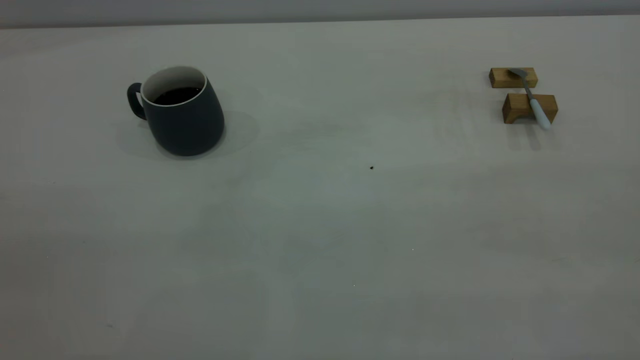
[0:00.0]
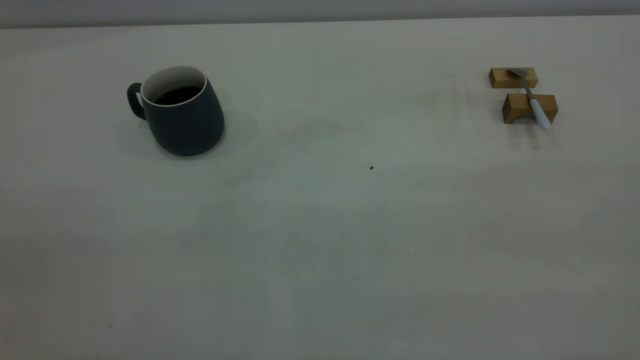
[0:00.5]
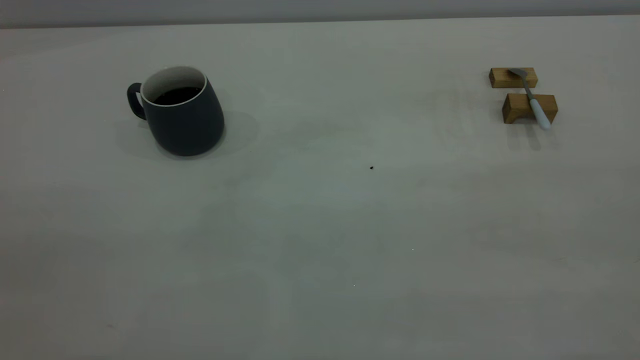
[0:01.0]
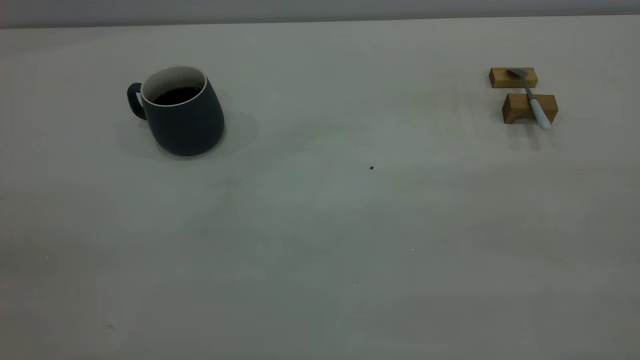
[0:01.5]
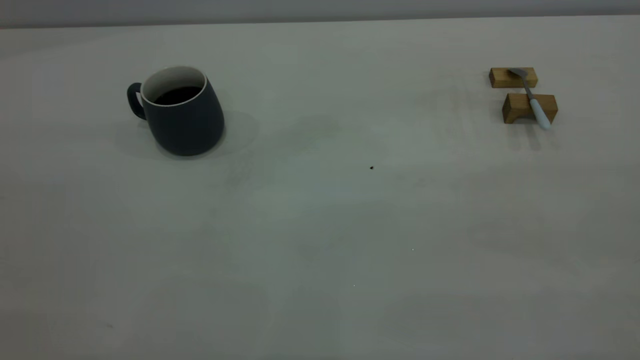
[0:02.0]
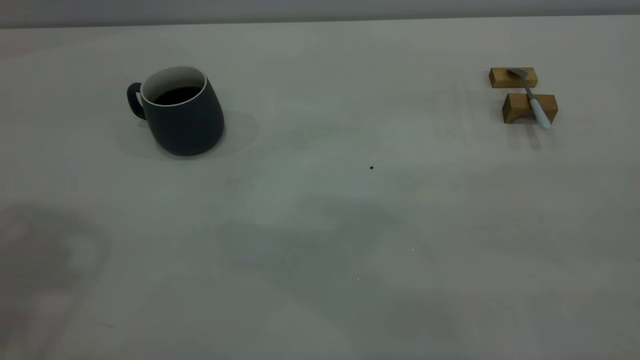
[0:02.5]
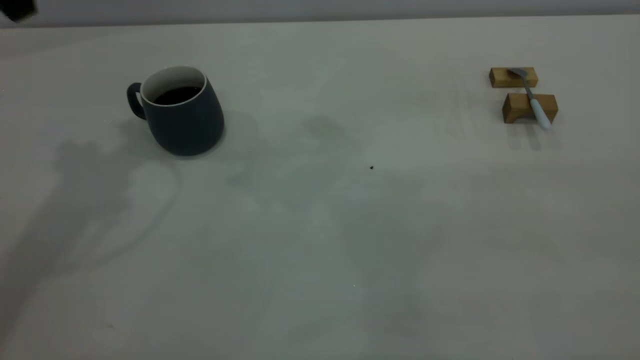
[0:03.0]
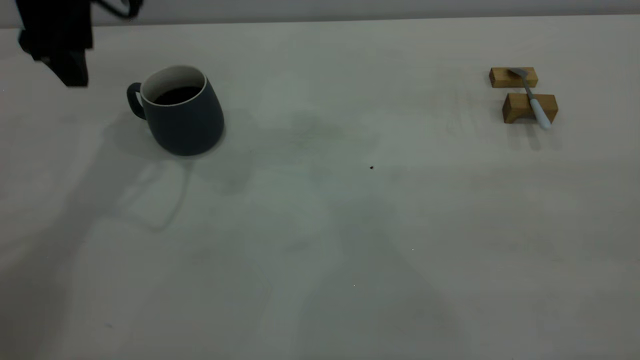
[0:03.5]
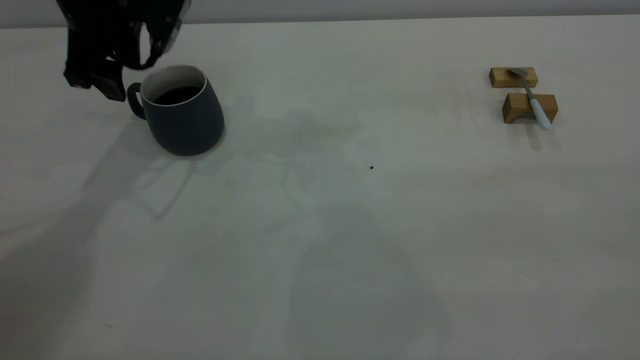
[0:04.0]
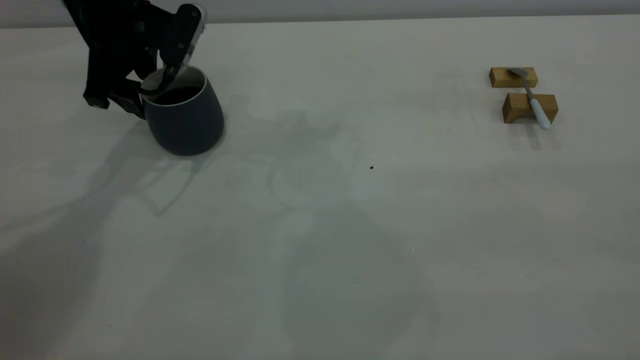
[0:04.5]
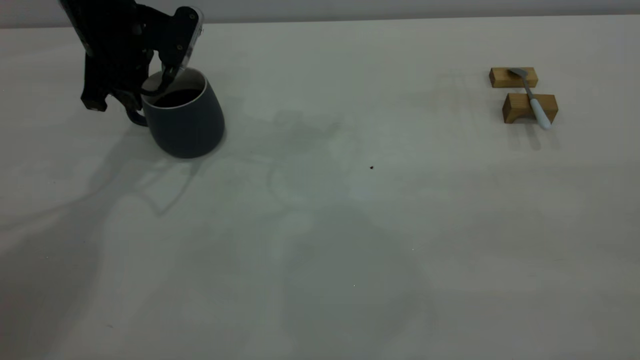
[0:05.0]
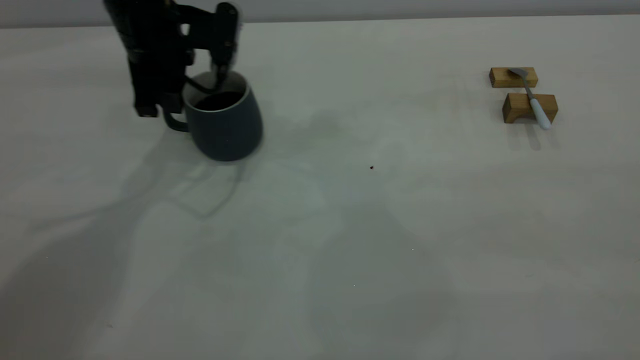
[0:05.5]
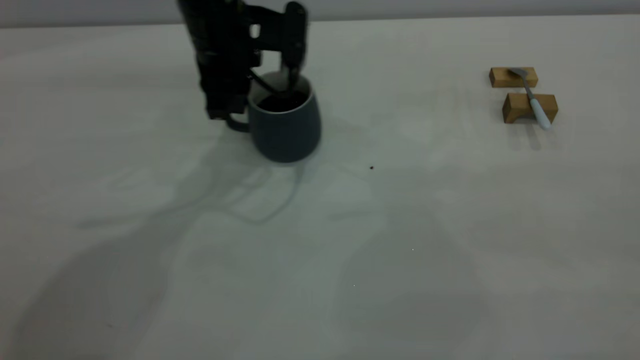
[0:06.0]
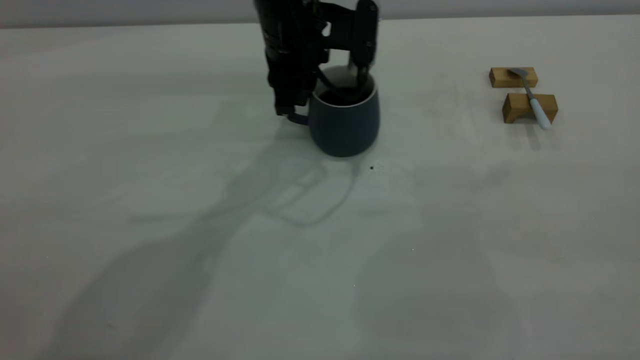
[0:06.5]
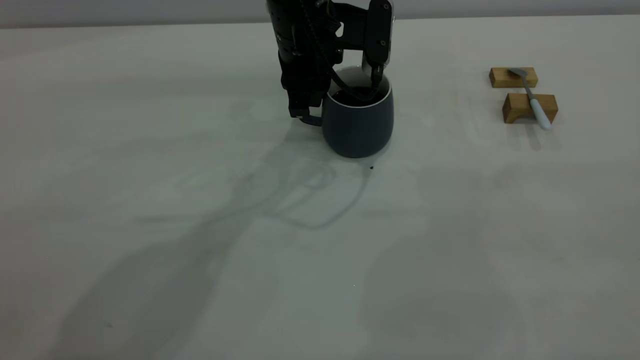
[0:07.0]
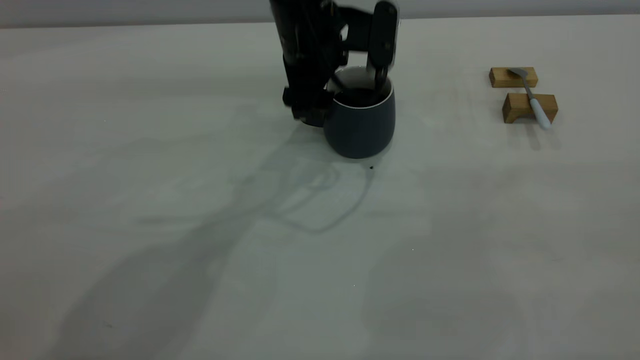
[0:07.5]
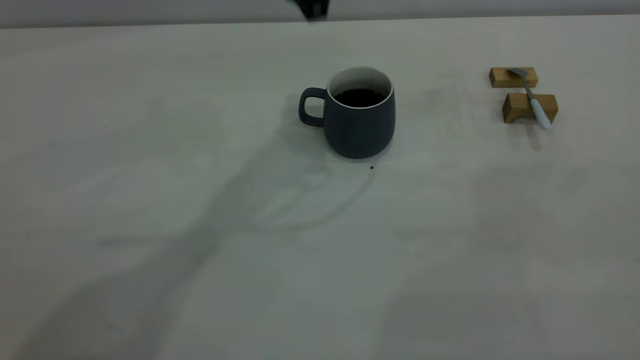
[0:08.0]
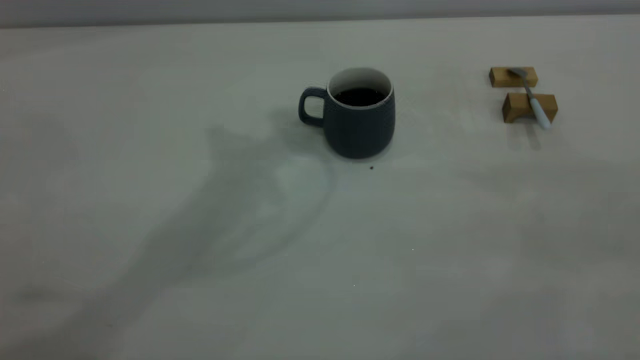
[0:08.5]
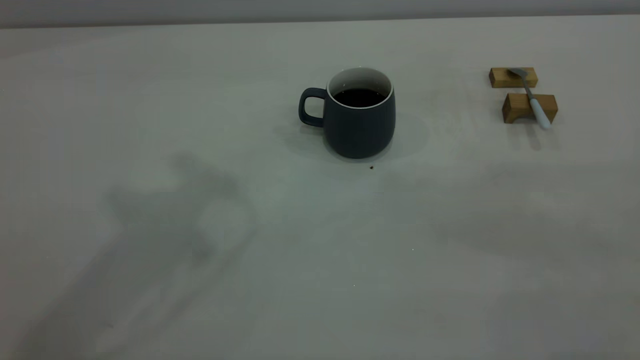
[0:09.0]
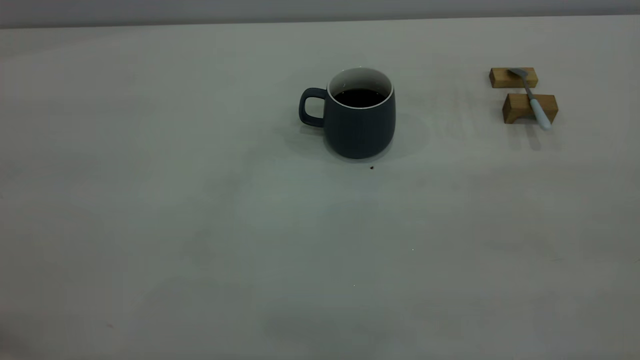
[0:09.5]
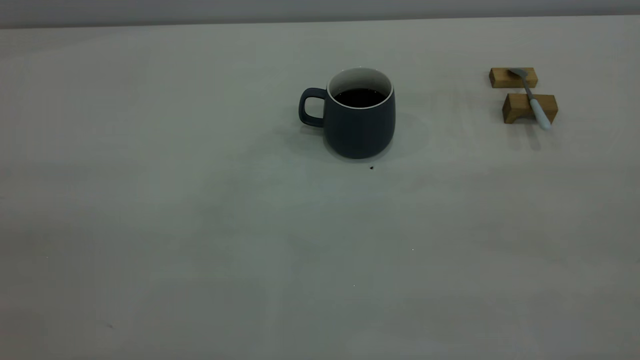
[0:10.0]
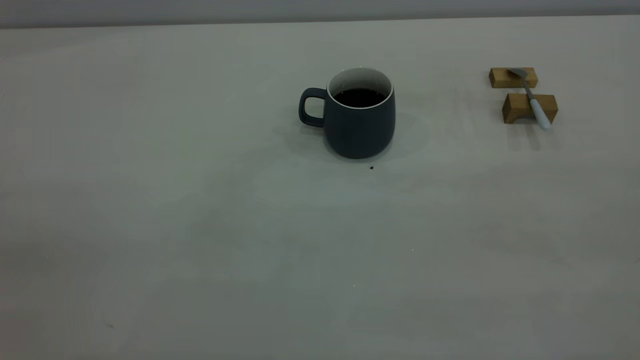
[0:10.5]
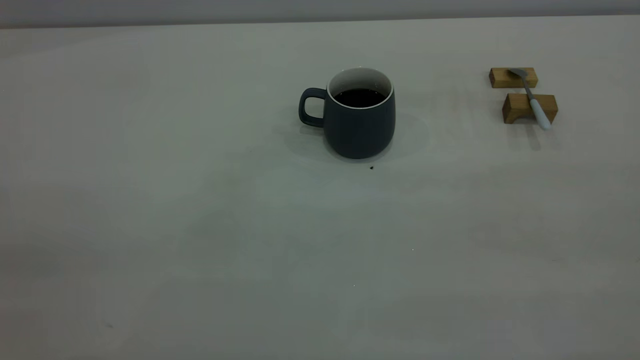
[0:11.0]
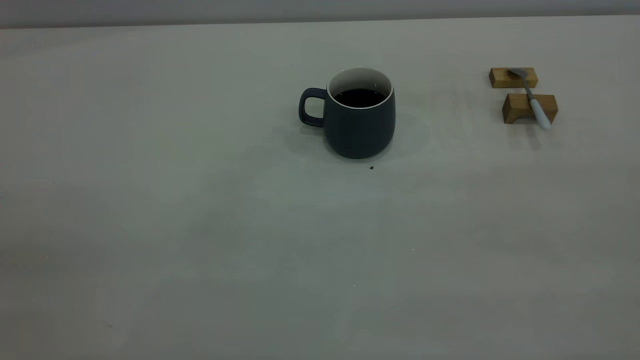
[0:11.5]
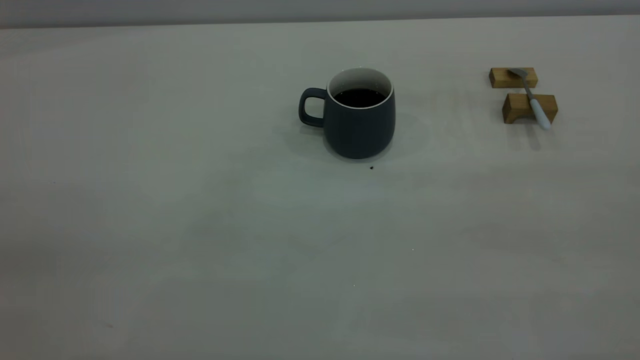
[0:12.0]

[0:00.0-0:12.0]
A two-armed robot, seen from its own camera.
Step, 0:00.0 to 0:07.5: Move the cup with coffee to the center of view.
0:02.0 to 0:04.0: The left gripper goes approximately 40 cm forward and downward, and opens up.
0:04.0 to 0:06.0: The left gripper is displaced to the right by about 15 cm, and closes.
0:06.0 to 0:08.0: The left gripper moves upward and to the right, about 15 cm, and opens its fingers.

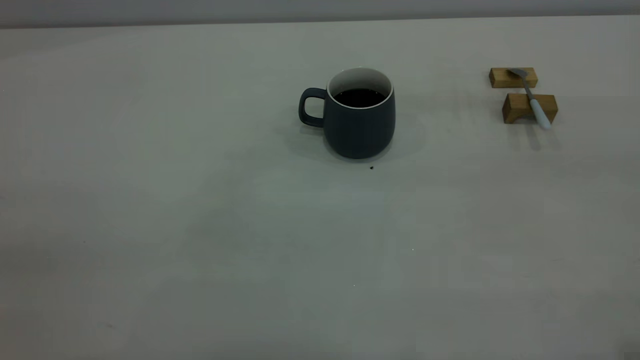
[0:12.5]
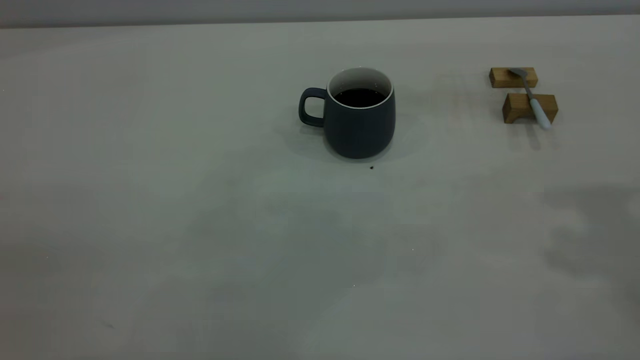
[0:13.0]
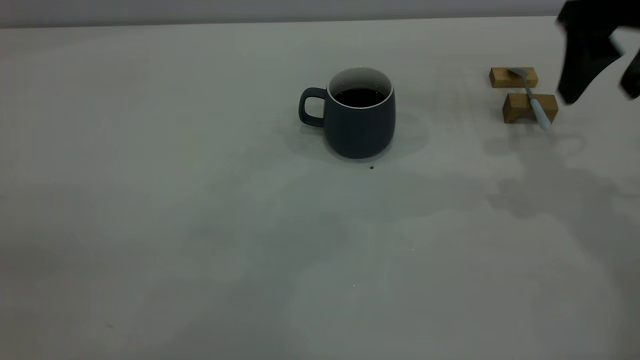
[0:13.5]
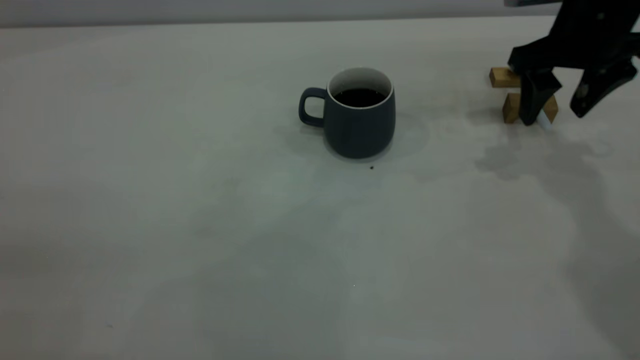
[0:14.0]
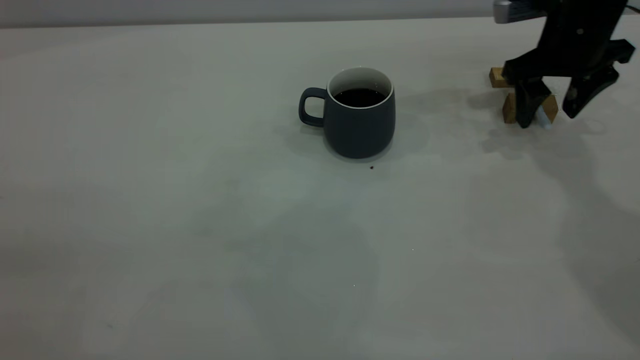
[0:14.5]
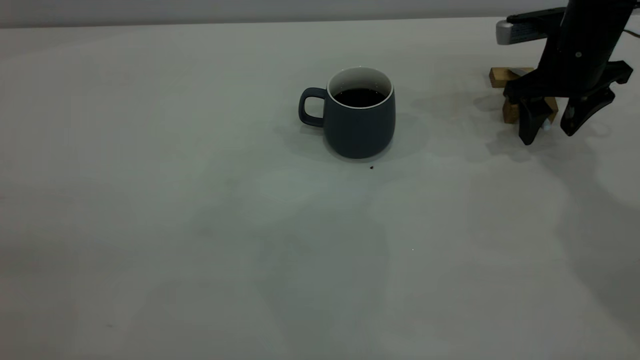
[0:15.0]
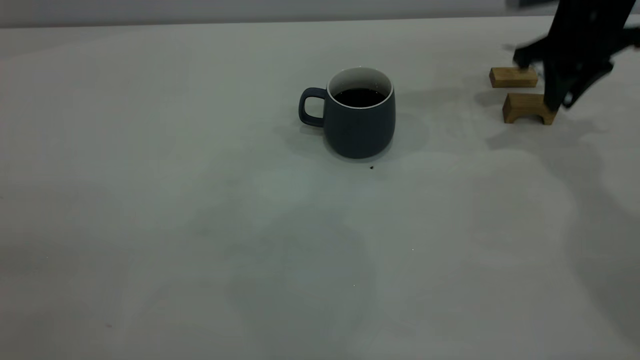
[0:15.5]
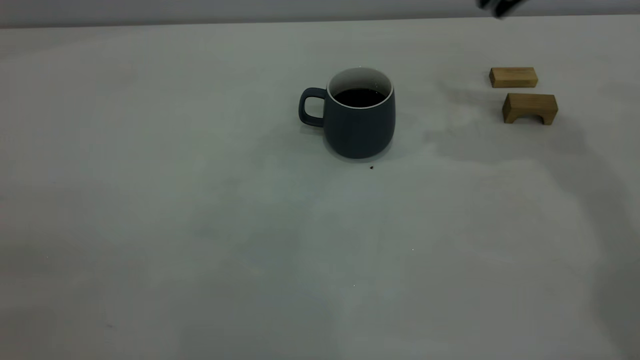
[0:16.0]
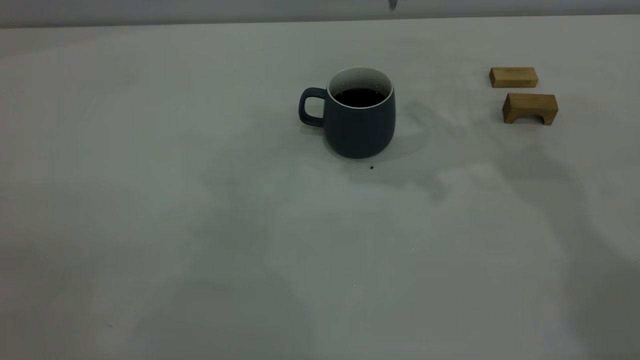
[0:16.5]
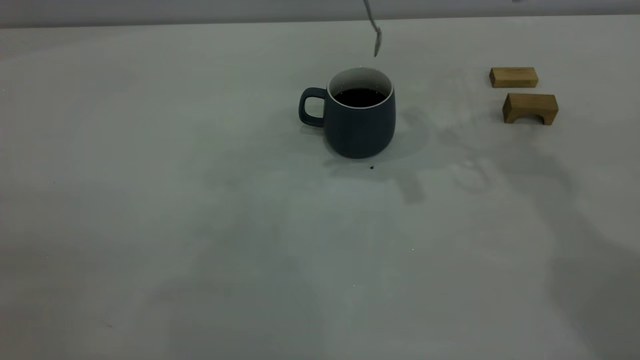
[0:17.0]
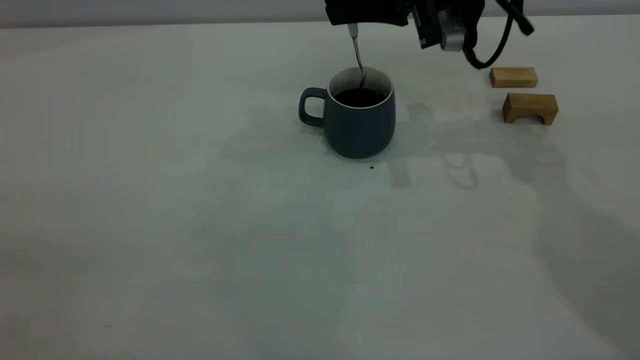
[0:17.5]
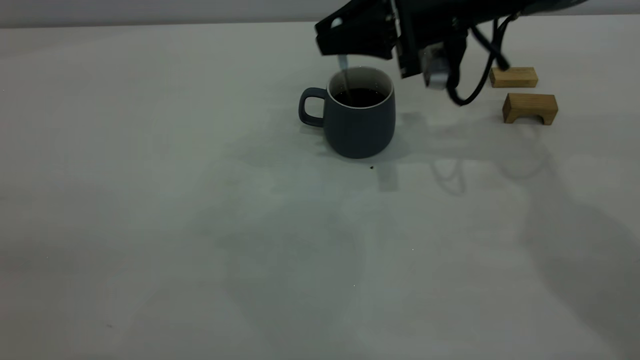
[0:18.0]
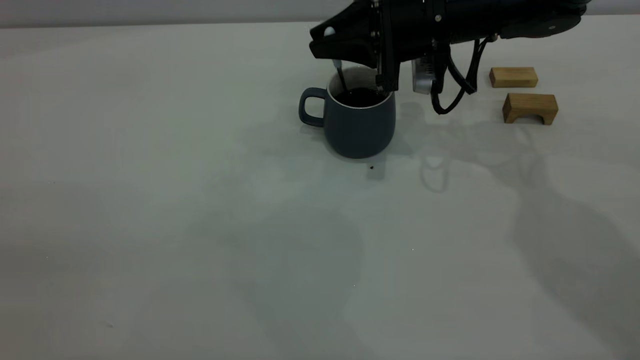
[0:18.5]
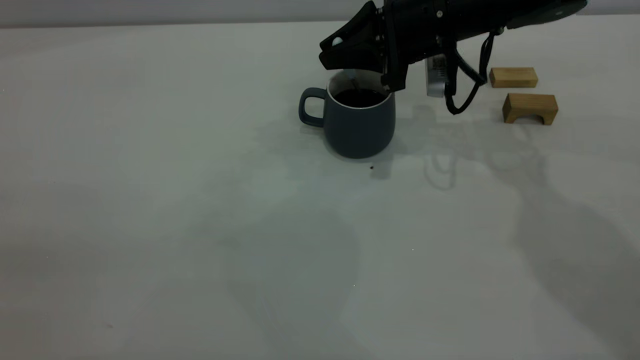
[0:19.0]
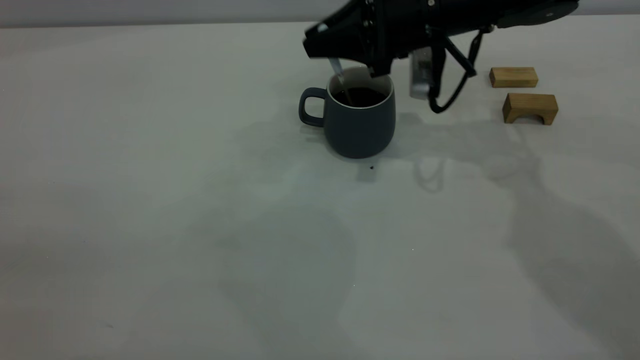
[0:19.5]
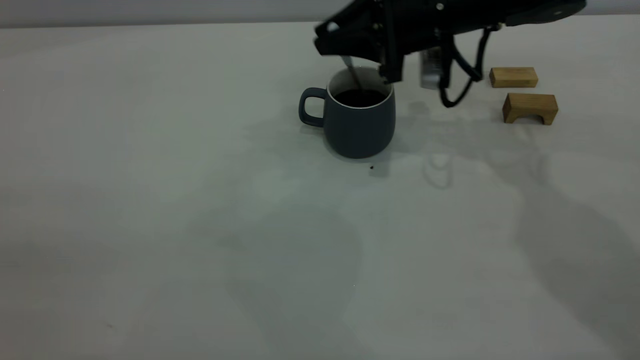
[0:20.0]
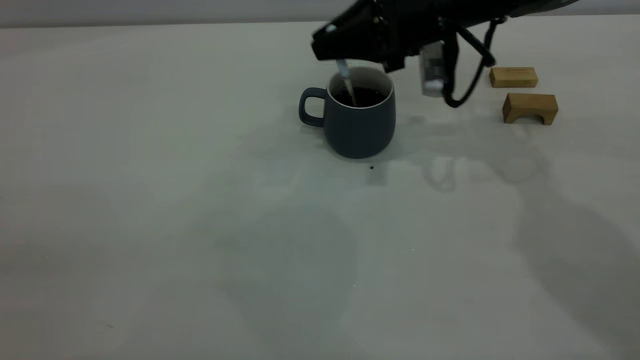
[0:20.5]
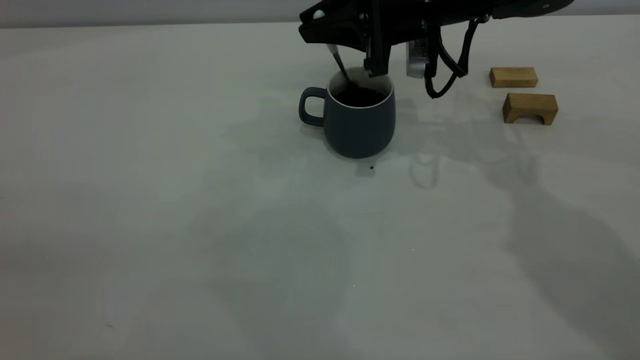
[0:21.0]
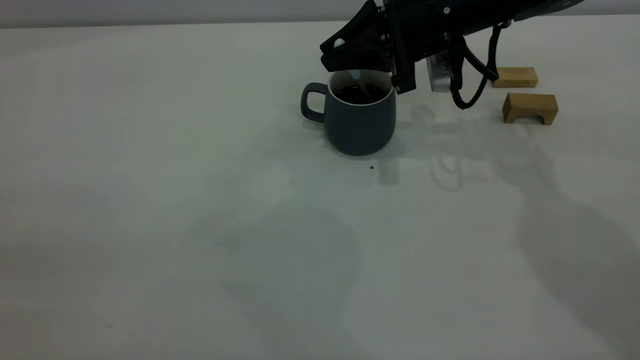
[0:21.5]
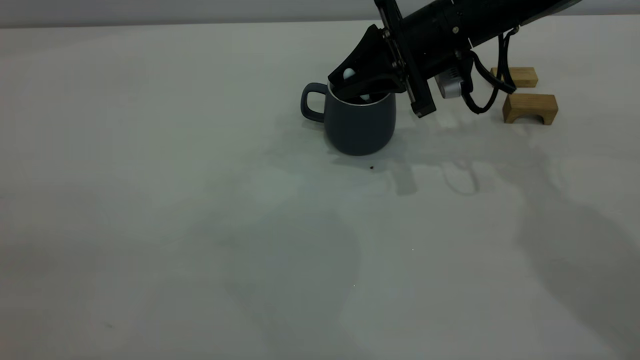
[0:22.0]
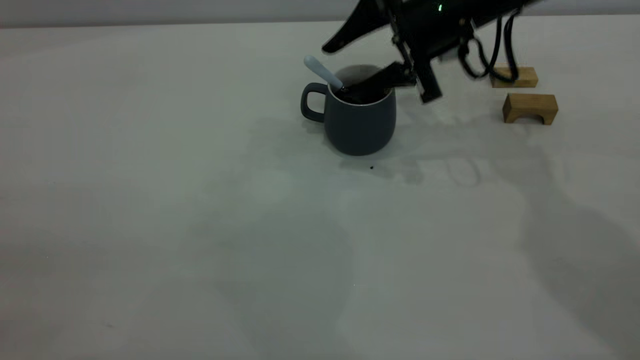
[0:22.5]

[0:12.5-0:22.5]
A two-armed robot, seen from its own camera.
Step, 0:12.5 to 0:15.5: Pick up the spoon.
0:12.5 to 0:14.5: The right gripper goes about 40 cm forward and downward.
0:14.5 to 0:16.5: The right gripper moves upward and to the left, roughly 20 cm, and closes up.
0:16.5 to 0:18.5: The right gripper moves downward, roughly 15 cm.
0:18.5 to 0:20.5: There are only small adjustments of the grippers.
0:20.5 to 0:22.5: The right gripper opens.
